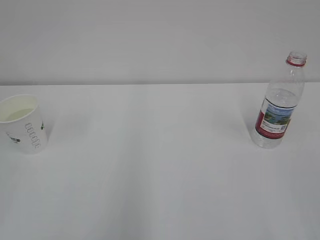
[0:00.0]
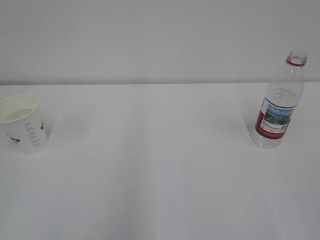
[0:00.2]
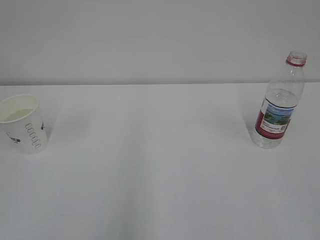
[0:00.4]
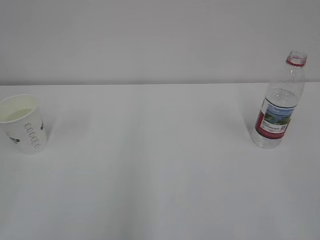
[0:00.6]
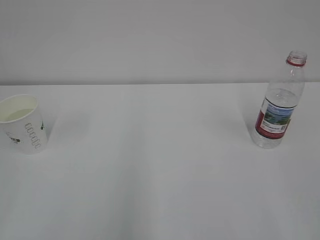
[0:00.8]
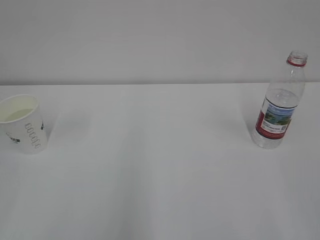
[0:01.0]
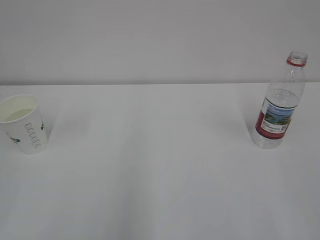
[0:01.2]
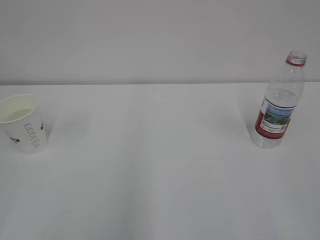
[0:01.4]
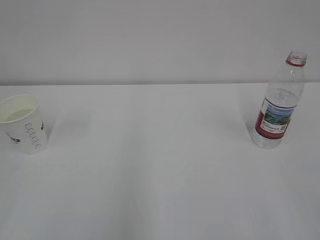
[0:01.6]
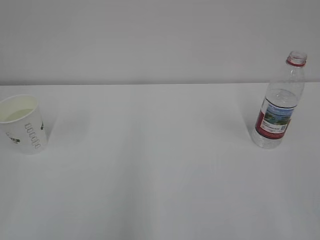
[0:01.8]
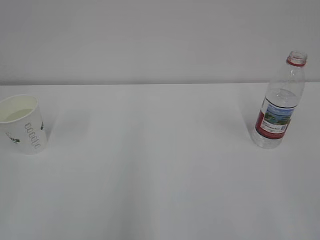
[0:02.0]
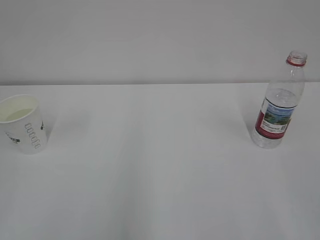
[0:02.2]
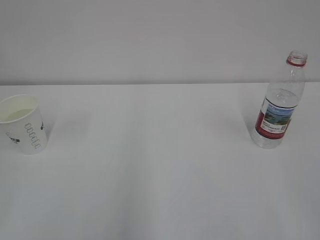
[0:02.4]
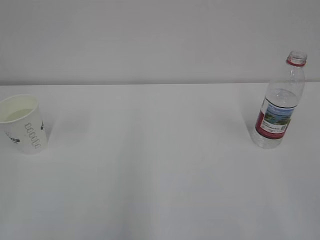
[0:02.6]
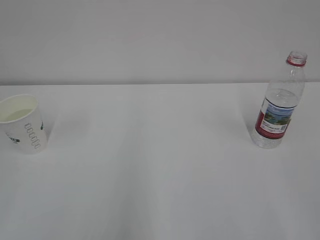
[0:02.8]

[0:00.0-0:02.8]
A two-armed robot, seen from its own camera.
0:01.4 to 0:02.8: Neither gripper changes place.
